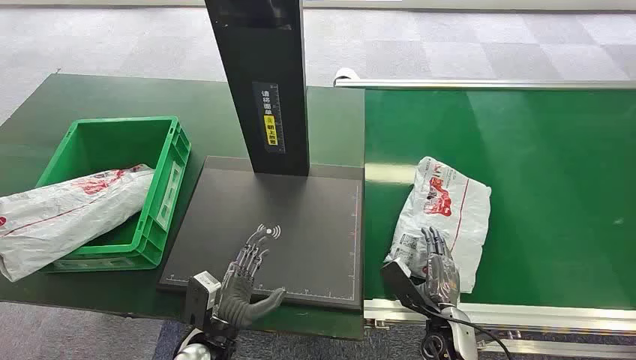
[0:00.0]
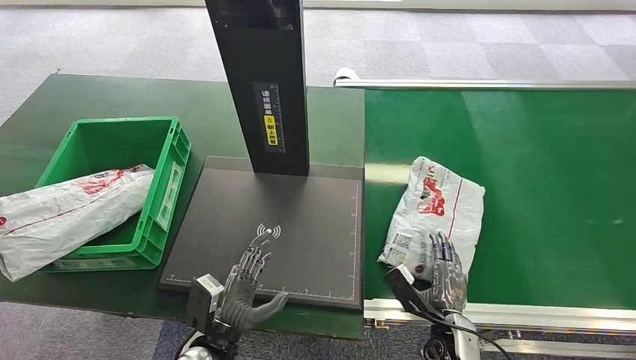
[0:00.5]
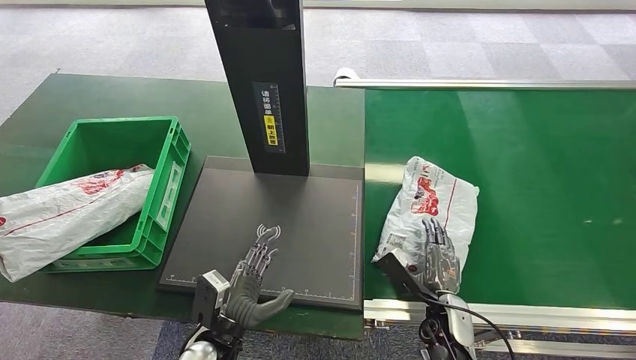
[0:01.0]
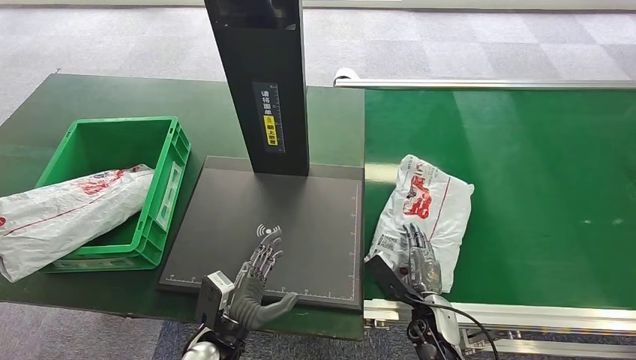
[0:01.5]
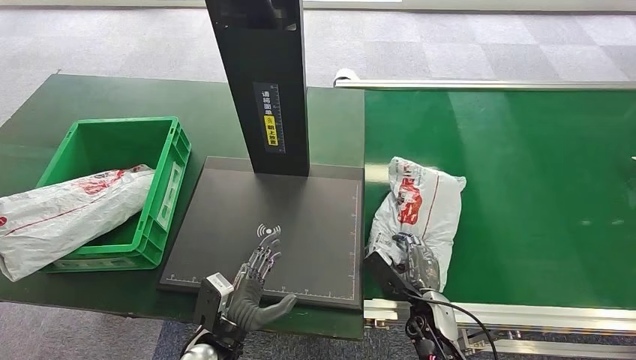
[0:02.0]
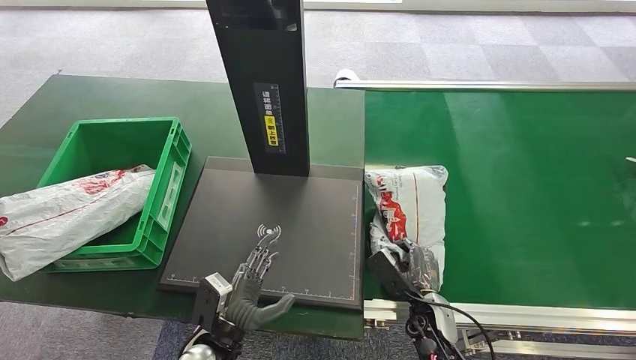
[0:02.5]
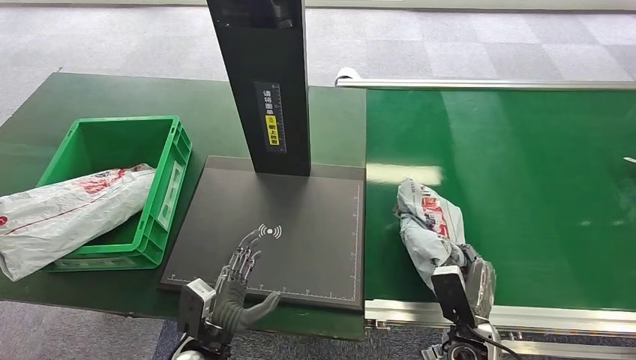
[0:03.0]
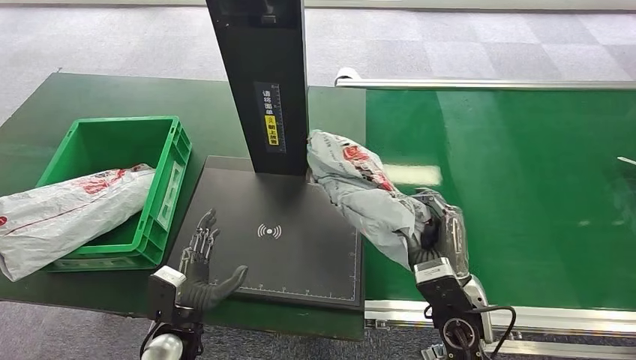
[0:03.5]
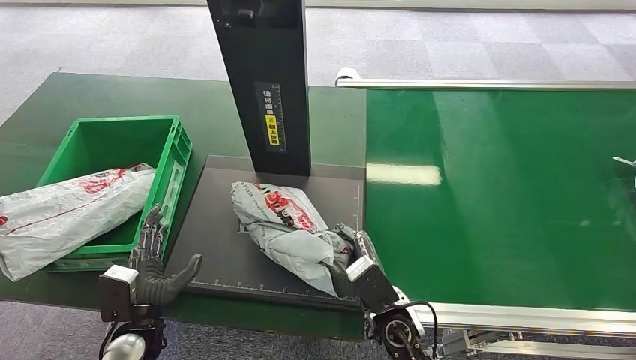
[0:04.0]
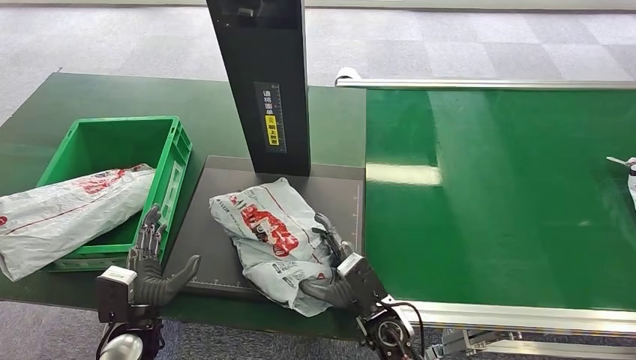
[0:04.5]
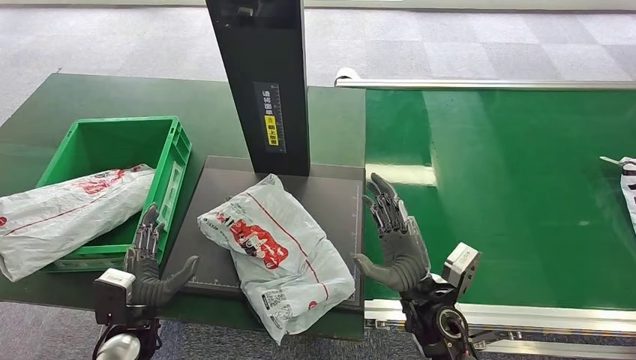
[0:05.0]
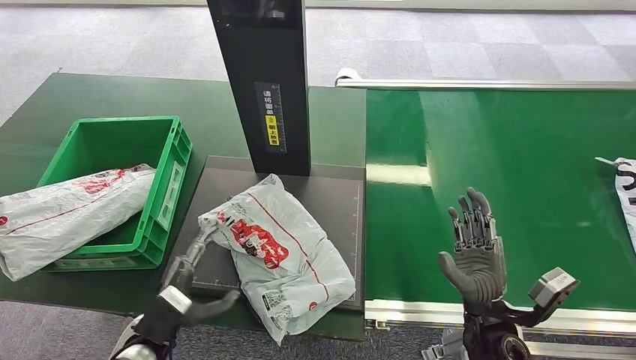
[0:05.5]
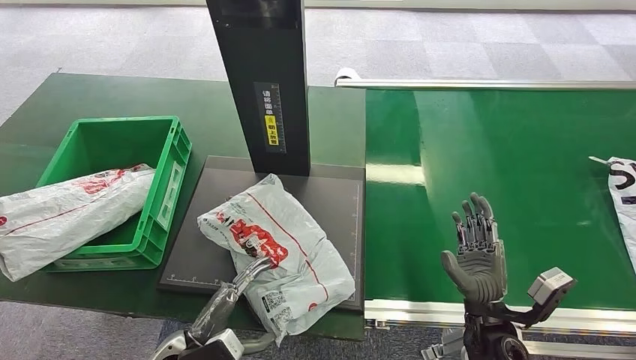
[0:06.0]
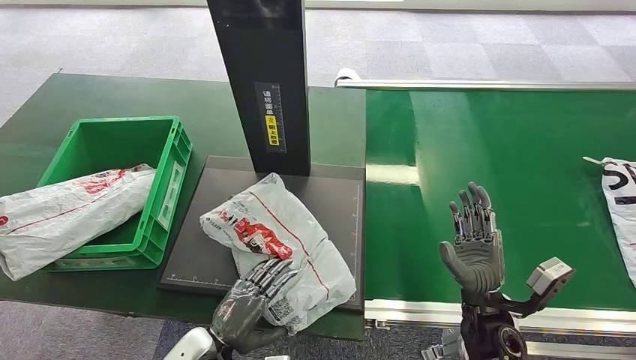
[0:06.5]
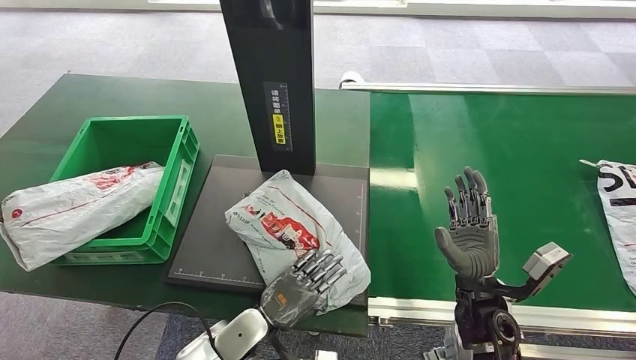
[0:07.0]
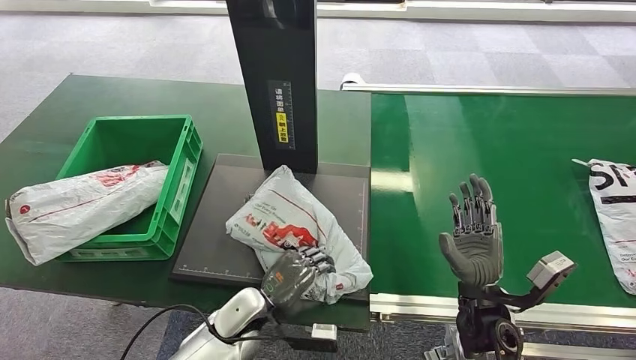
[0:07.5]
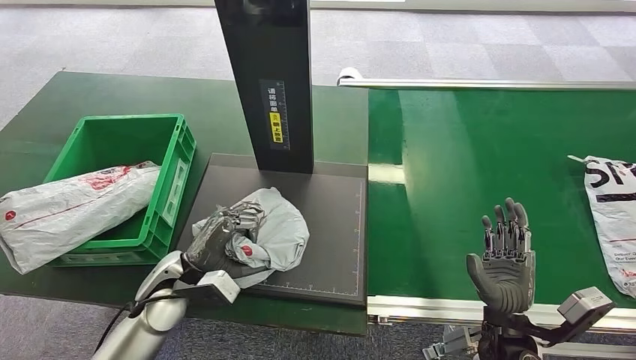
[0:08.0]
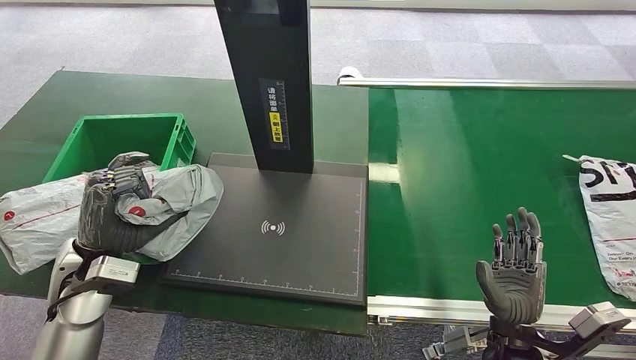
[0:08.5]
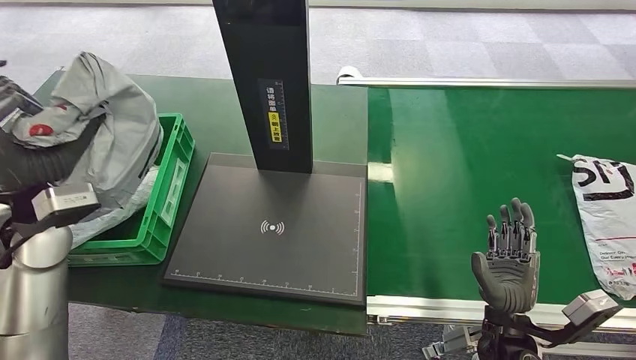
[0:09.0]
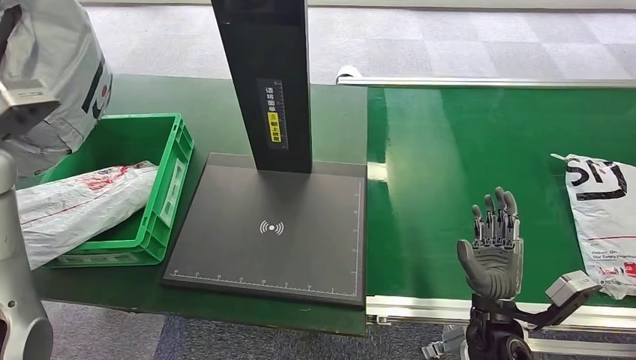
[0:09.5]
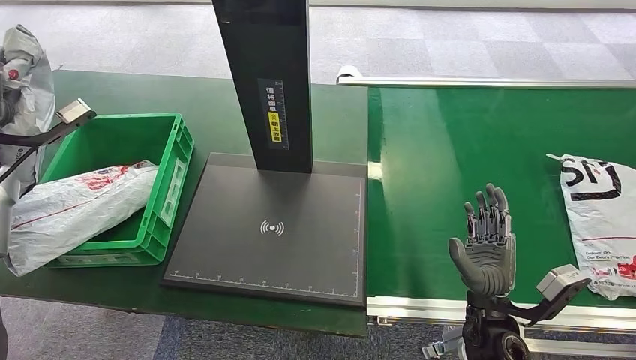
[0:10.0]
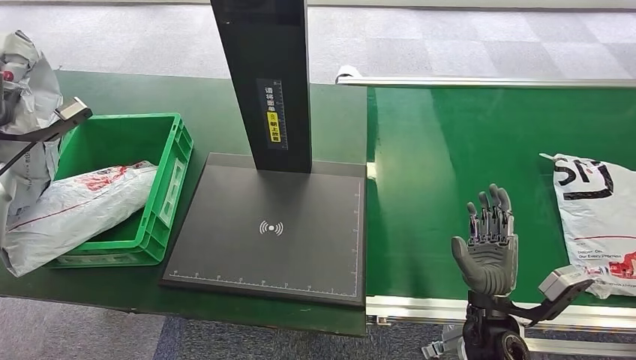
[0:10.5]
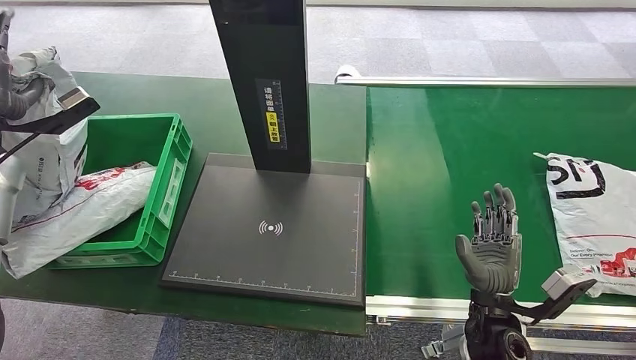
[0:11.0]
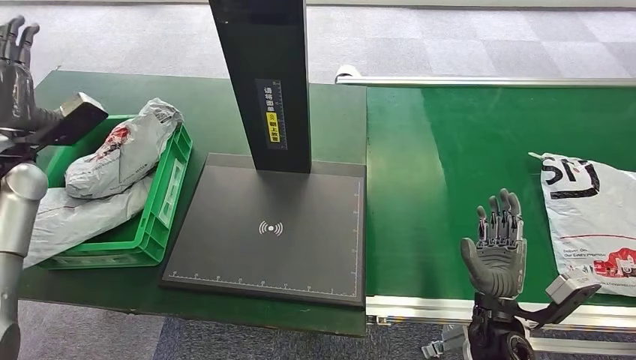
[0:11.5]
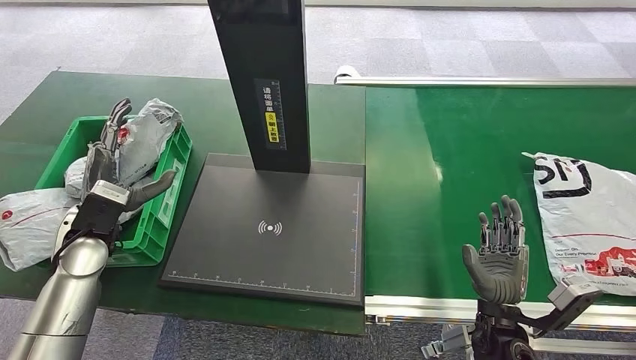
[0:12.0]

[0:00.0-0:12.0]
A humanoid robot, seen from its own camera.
Step, 0:00.0 to 0:03.5: Pick up the package from the conveyor belt.
Step, 0:04.0 to 0:05.5: Place the package onto the inbound machine.
Step, 0:06.5 to 0:08.5: Pick up the package from the inbound machine.
Step, 0:09.0 to 0:12.0: Place the package into the parcel locker.
0:04.0 to 0:06.0: The left hand goes approximately 5 cm to the right; the right hand travels to the right by about 15 cm.
